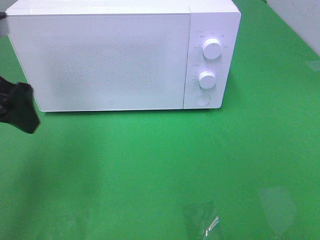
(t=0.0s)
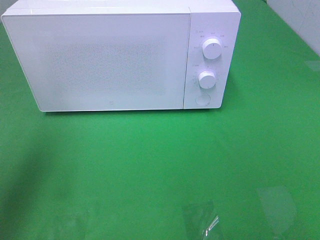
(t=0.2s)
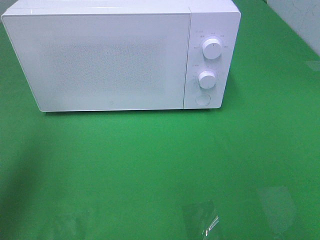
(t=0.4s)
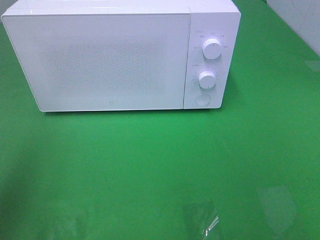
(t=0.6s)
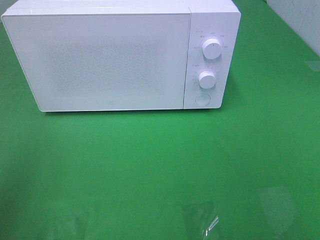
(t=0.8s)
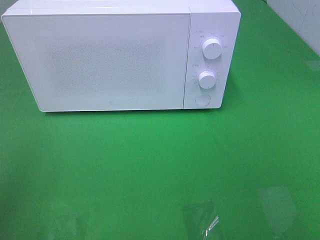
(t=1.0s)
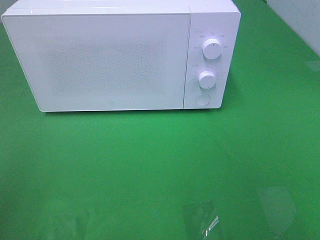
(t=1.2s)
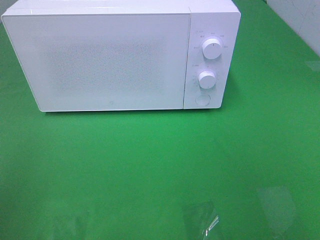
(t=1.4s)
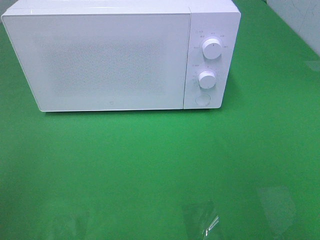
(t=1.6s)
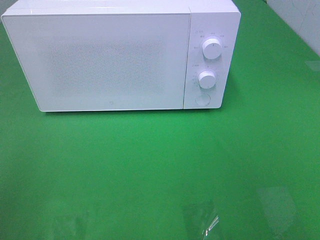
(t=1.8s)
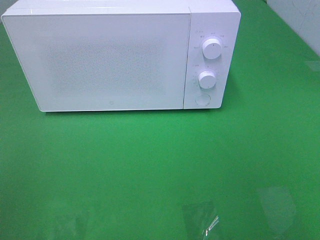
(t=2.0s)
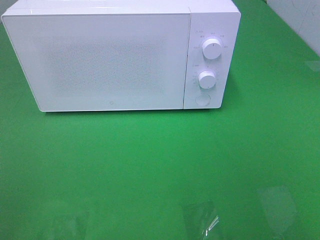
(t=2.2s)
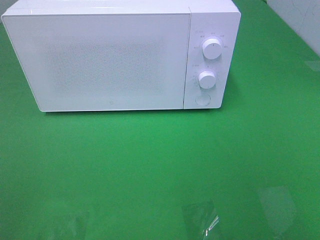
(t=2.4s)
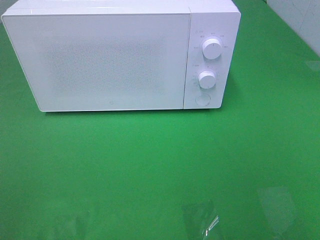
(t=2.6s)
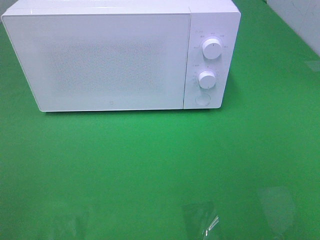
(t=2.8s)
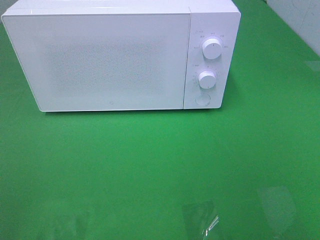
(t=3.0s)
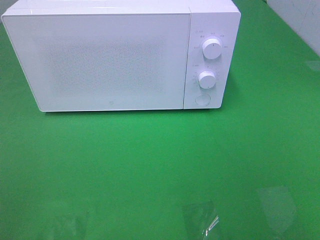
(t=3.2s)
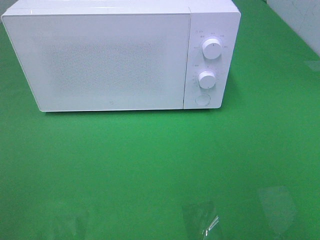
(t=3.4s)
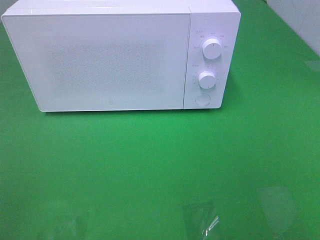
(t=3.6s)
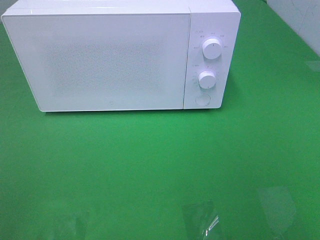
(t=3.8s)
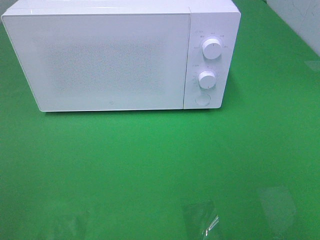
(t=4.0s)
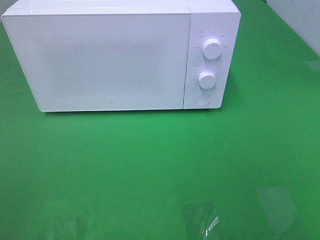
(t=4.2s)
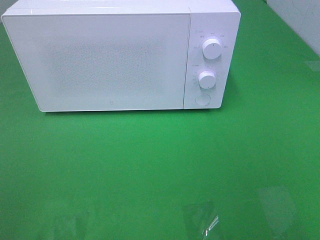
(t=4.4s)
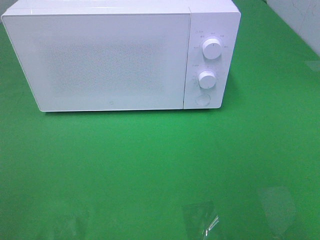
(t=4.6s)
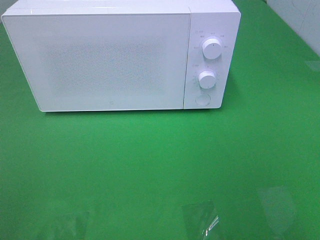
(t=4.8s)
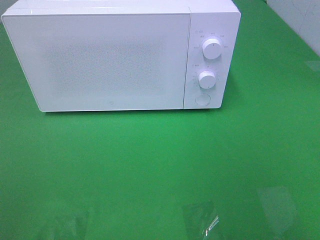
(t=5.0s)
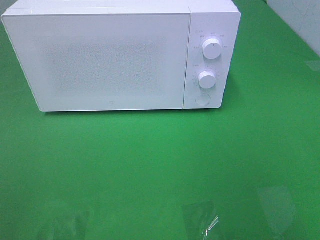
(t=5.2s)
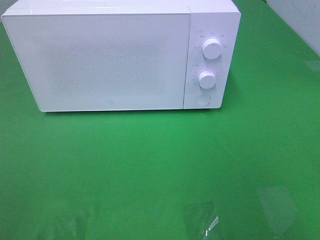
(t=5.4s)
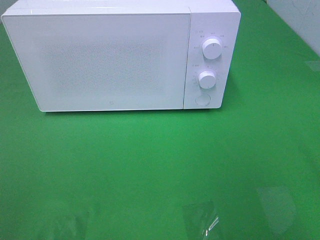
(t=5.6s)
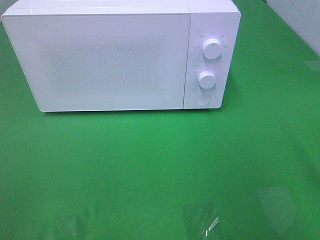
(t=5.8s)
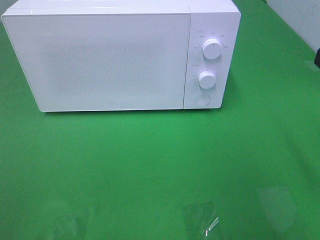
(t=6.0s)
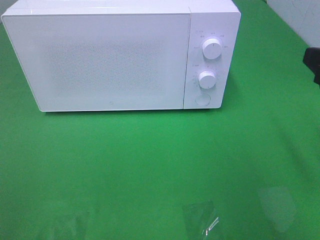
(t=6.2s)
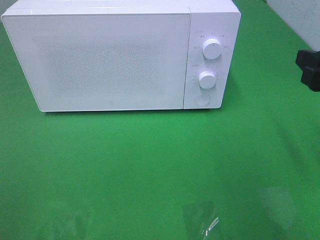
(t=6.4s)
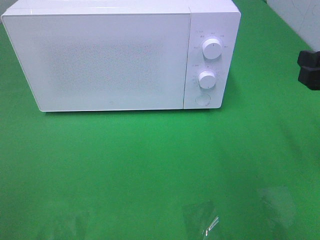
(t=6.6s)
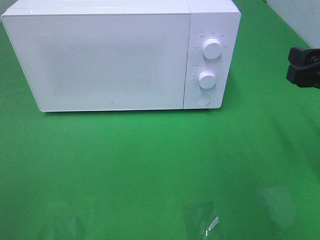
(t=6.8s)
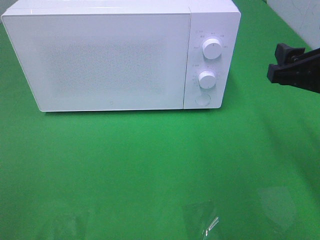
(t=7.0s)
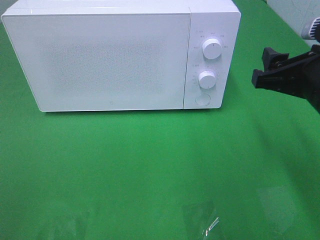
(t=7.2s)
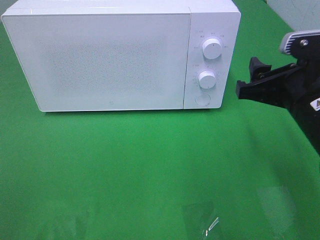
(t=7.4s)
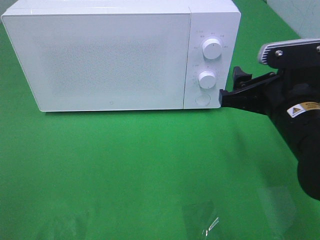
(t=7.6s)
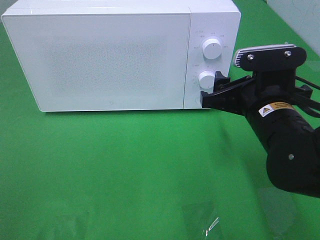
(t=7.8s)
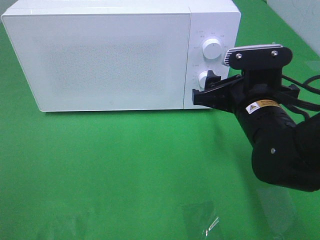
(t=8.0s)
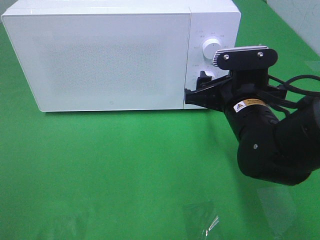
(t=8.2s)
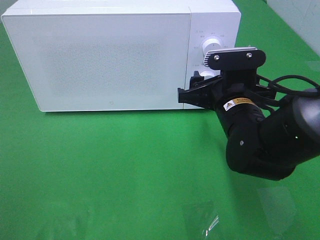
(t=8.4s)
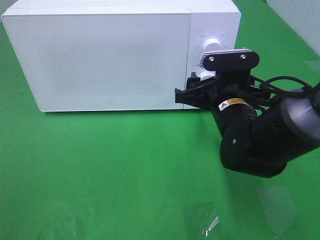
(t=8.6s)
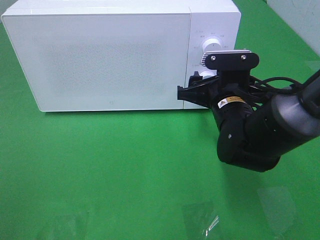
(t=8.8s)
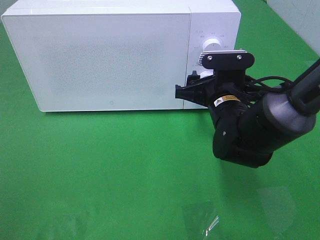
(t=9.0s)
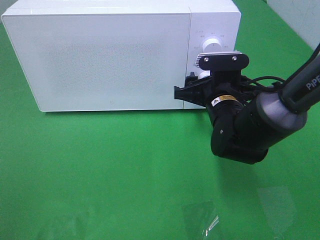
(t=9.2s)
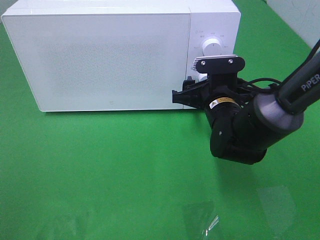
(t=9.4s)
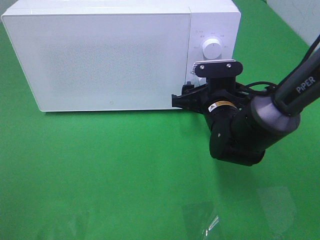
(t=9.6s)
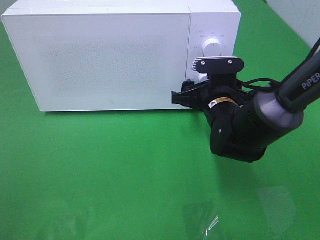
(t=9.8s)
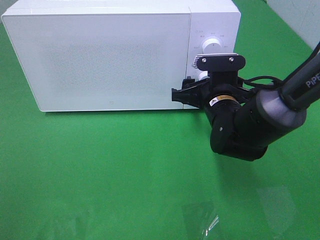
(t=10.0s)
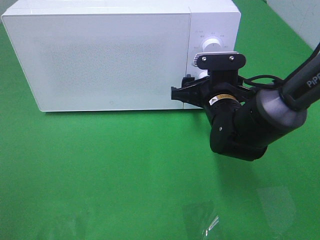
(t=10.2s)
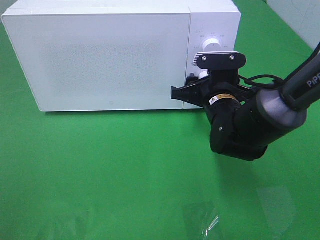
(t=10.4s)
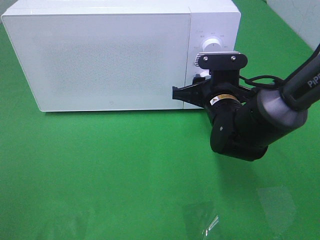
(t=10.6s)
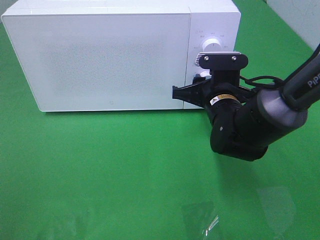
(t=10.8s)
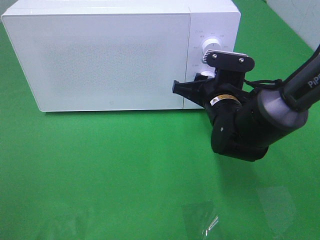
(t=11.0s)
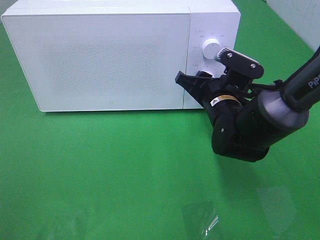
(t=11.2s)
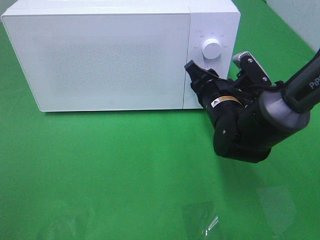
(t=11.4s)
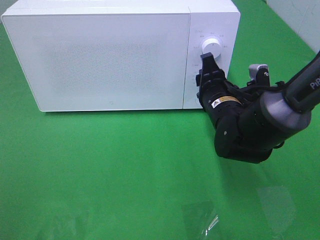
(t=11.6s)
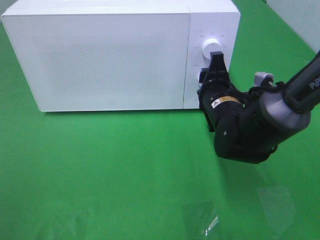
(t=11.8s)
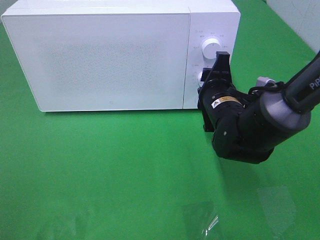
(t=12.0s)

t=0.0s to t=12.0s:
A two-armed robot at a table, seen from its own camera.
Task of the whole recording: Heat the burger.
t=0.0s to t=1.6s: The left gripper shifts roughly 20 cm backward and to the left.
t=6.0s to t=7.6s: The right gripper goes roughly 15 cm to the left, downward and forward.
t=7.6s to t=9.0s: The right gripper shifts some 10 cm forward, downward and to the left.
t=9.0s to t=10.4s: The grippers make only small movements.

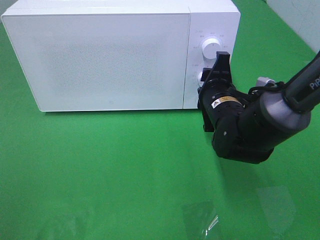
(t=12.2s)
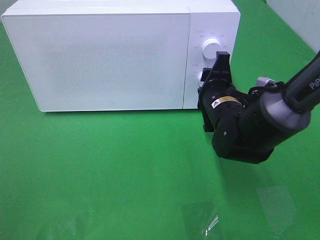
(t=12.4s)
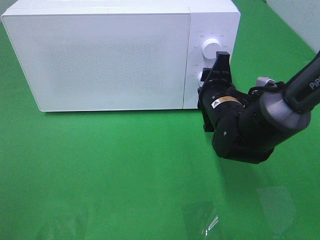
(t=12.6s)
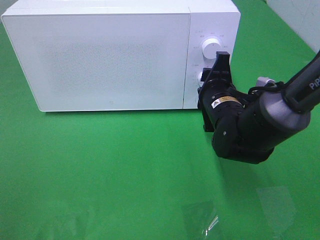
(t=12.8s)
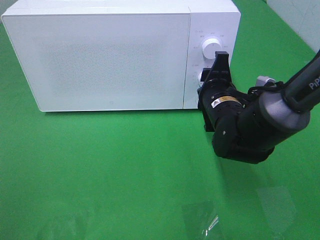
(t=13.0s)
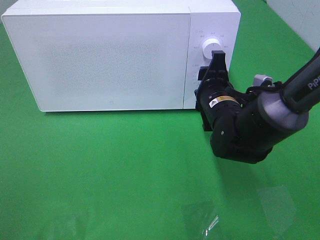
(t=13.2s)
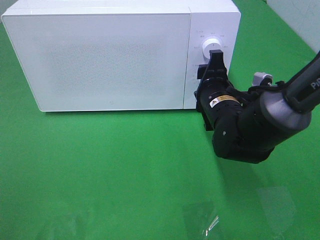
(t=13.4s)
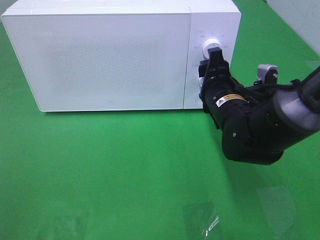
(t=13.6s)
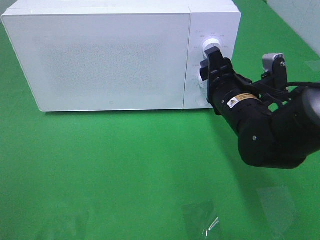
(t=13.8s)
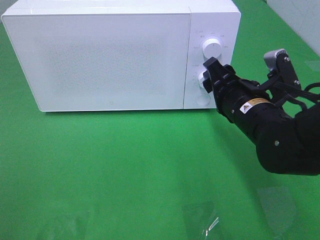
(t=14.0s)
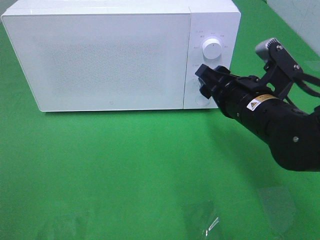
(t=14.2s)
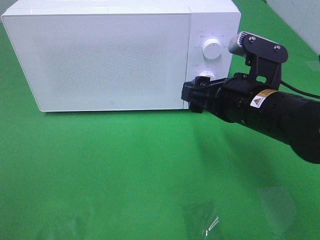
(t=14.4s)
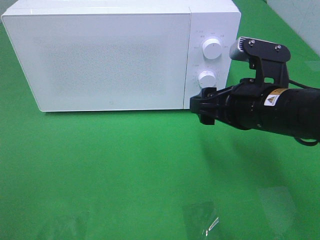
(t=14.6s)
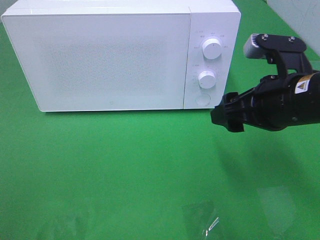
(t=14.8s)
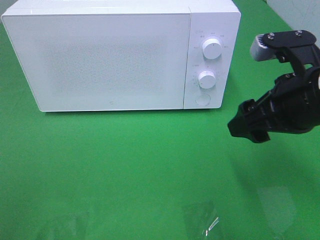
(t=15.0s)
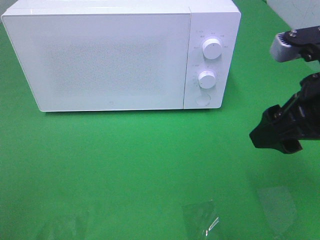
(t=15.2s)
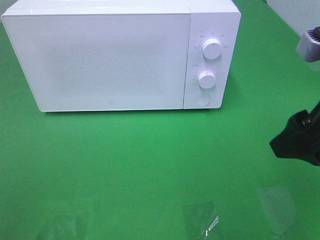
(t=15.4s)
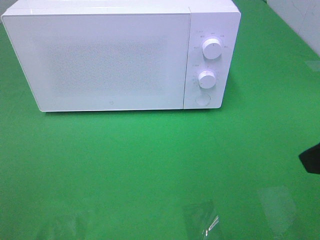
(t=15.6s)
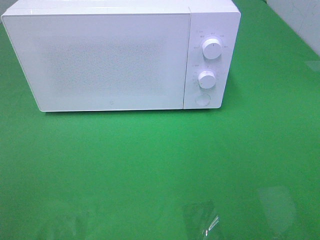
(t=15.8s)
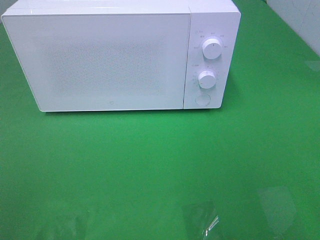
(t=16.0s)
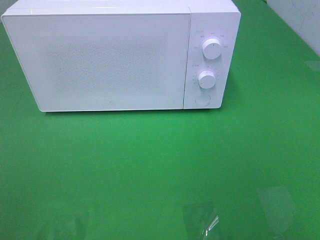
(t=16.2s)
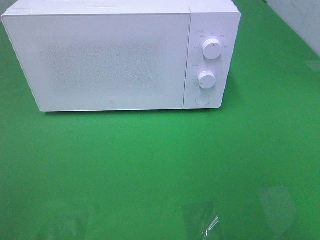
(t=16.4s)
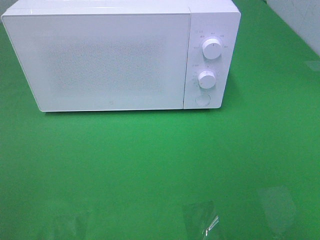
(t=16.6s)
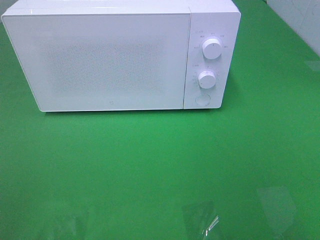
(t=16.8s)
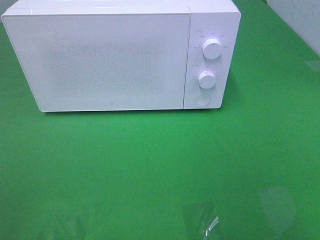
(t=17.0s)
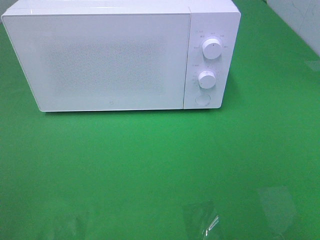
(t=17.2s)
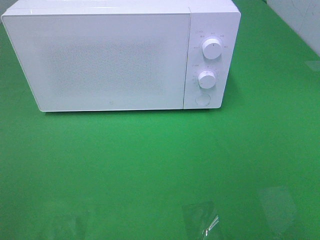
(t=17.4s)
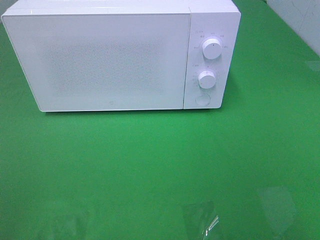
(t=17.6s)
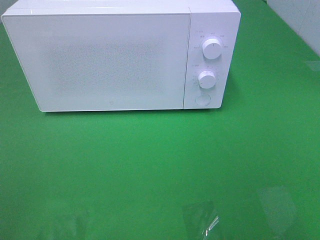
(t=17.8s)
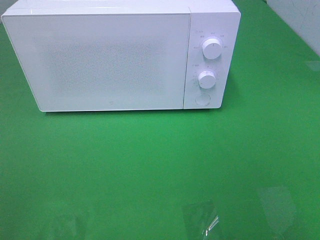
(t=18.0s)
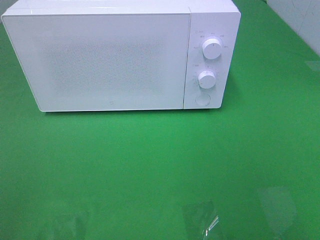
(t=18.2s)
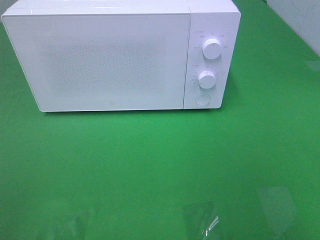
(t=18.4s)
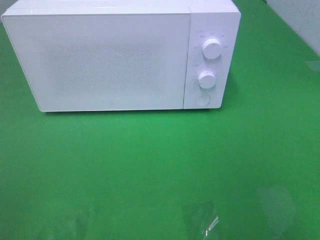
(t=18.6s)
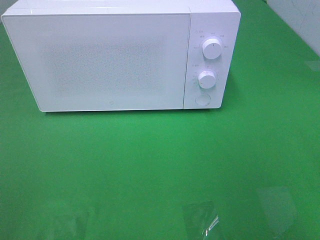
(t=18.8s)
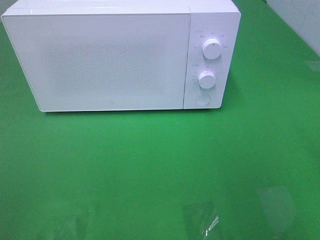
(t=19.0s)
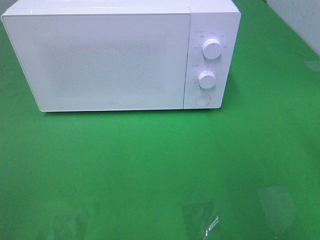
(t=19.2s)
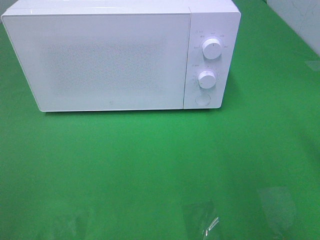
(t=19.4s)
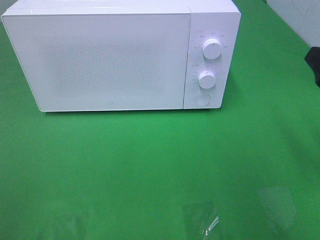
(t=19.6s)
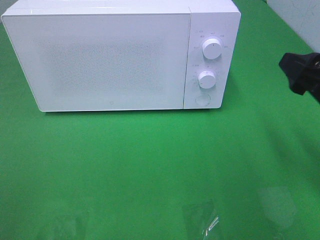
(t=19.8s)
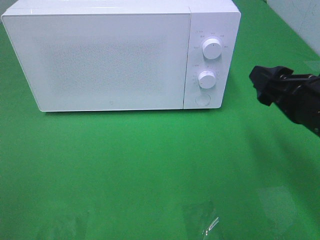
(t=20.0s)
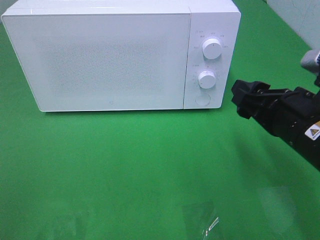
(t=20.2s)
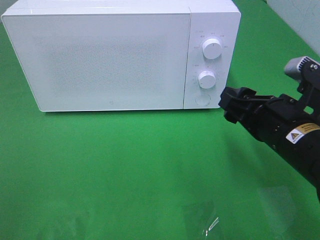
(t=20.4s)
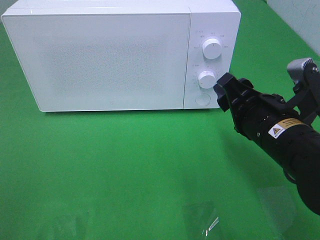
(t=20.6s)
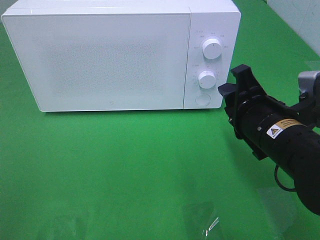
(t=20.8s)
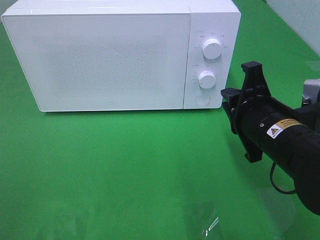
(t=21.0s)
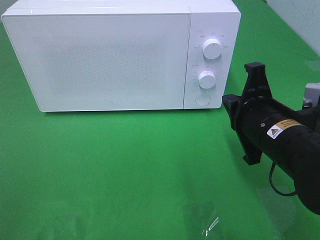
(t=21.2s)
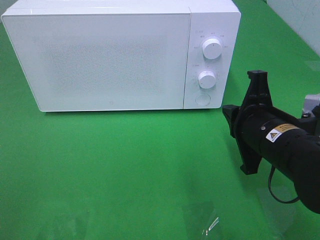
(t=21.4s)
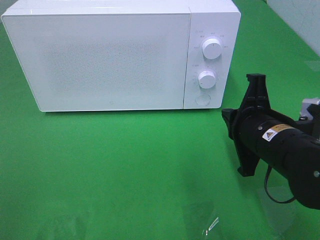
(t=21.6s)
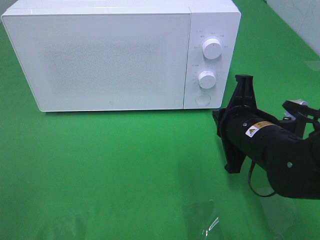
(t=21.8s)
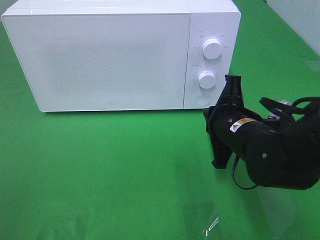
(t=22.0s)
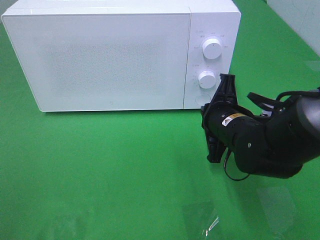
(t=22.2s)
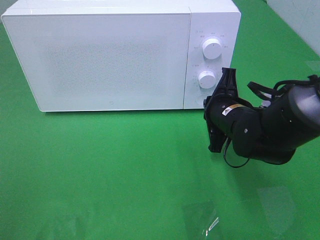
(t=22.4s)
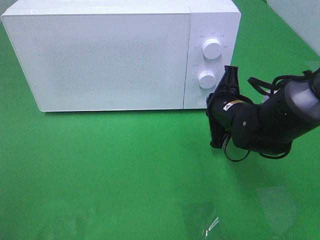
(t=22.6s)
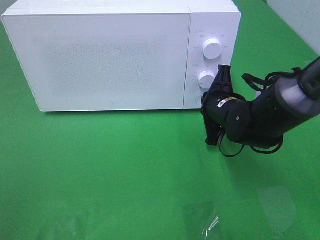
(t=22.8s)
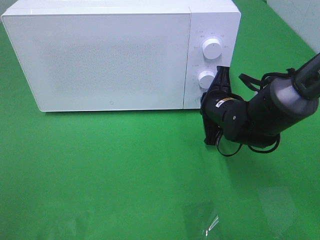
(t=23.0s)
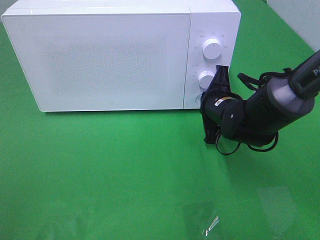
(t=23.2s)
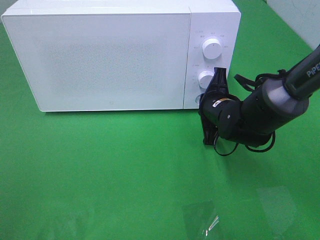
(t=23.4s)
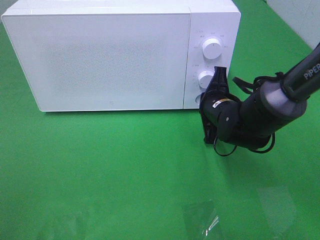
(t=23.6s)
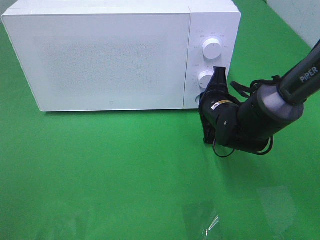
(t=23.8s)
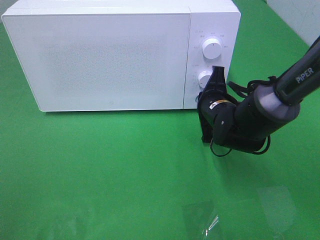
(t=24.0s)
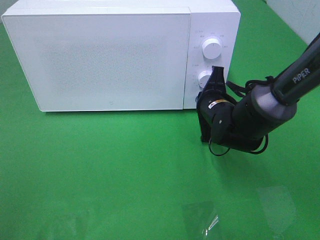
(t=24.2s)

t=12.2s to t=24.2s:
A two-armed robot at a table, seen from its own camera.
Task of the whole recording: Heat the burger.
t=13.8s to t=15.2s: The right gripper shifts approximately 15 cm upward, backward and to the right.
t=15.2s to t=16.6s: The right gripper travels backward and to the right by some 20 cm.
t=18.2s to t=19.8s: The right gripper shifts about 20 cm forward and downward.
t=19.8s to t=21.2s: The right gripper travels to the left and downward by about 10 cm, and closes.
t=21.2s to t=22.6s: The right gripper moves forward and downward, roughly 10 cm.
t=22.6s to t=24.2s: The grippers stay close to where they were, moving slightly.
